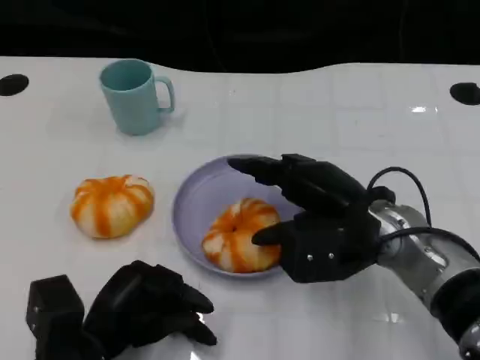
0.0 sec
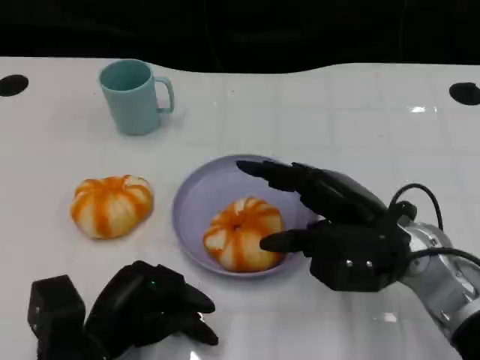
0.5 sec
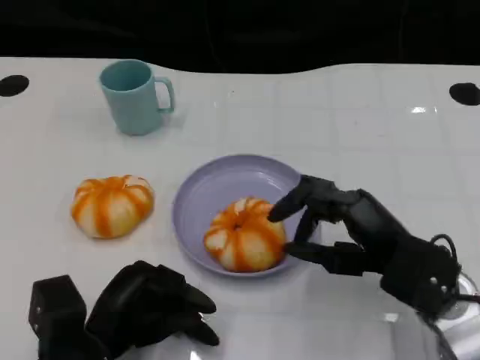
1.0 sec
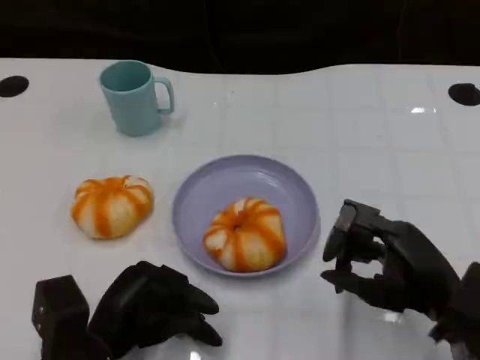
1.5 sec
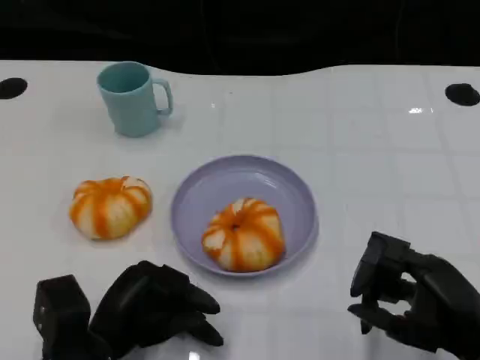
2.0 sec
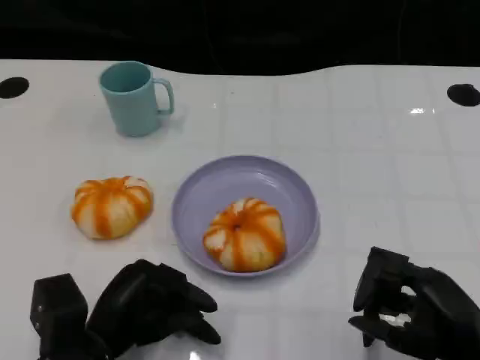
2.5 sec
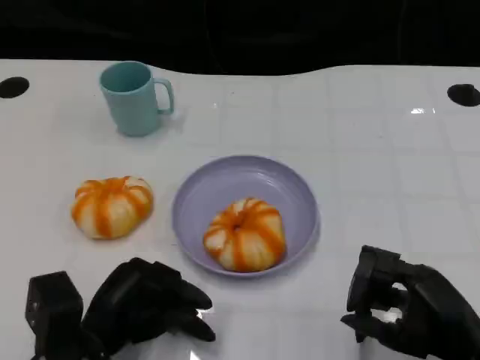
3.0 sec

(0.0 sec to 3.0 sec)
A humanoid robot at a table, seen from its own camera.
Task of the whole recording: Grasp the bread from the table and place it into the plate.
0.0 sec - 1.5 sec: The right hand heads backward and to the right, covering about 10 cm.
1.5 sec - 3.0 sec: There are only small adjustments of the hands.

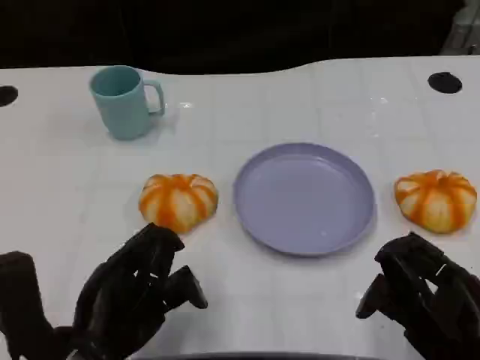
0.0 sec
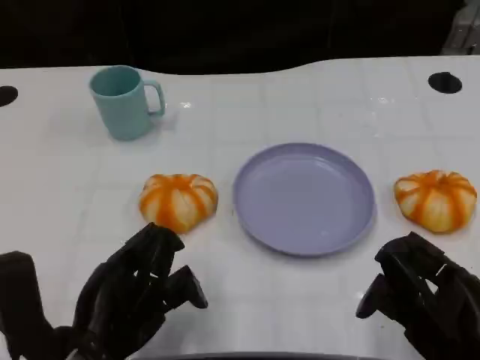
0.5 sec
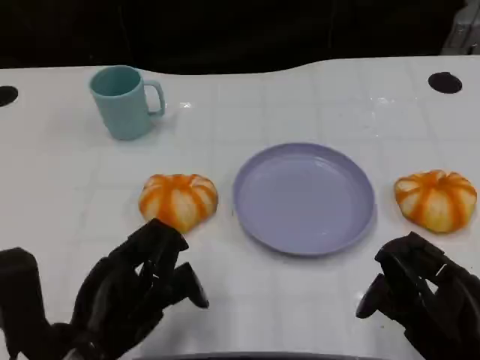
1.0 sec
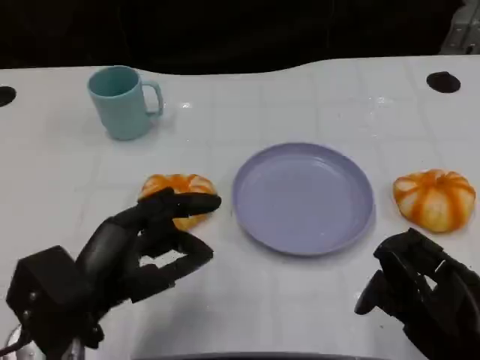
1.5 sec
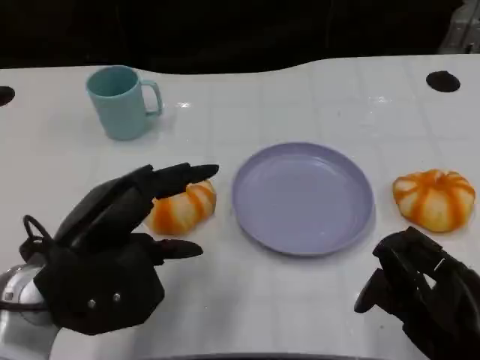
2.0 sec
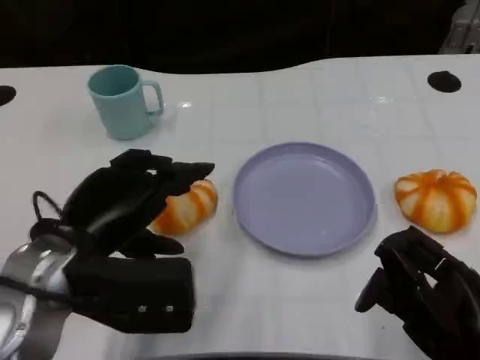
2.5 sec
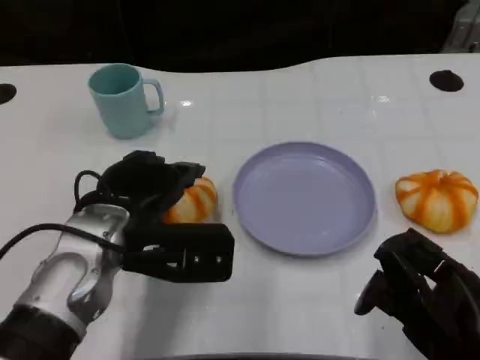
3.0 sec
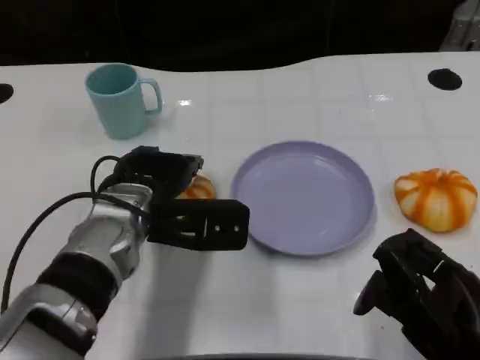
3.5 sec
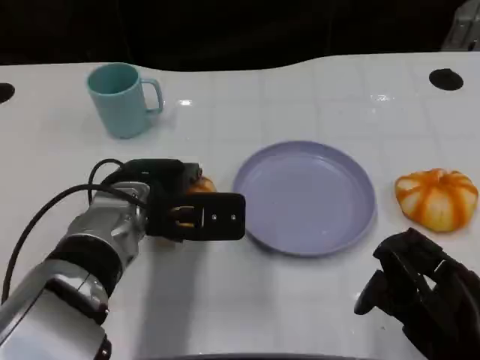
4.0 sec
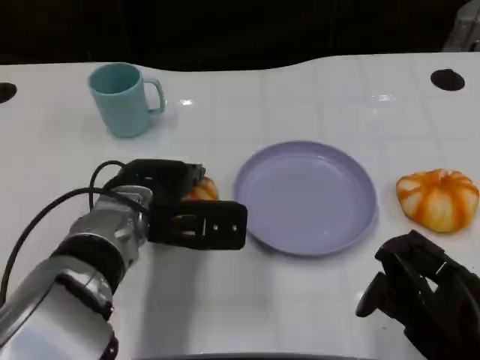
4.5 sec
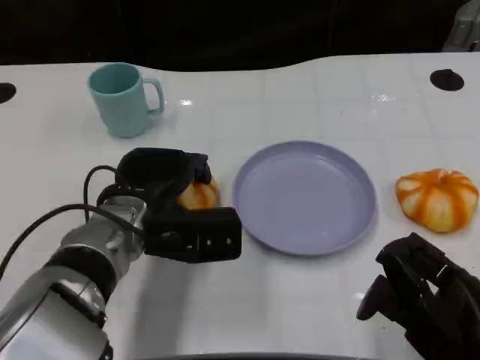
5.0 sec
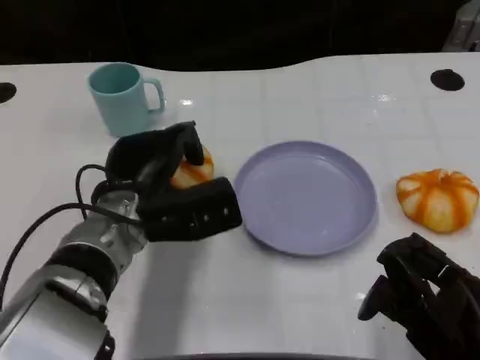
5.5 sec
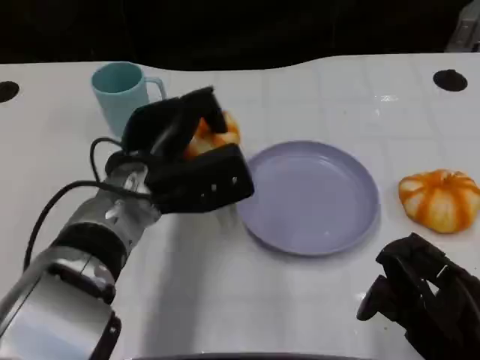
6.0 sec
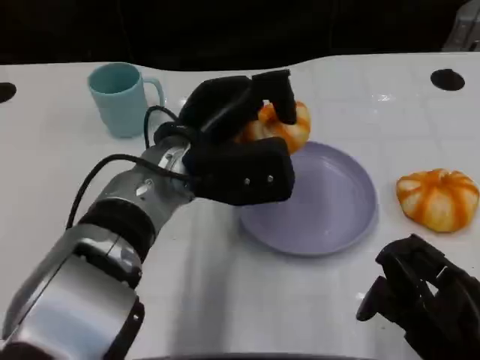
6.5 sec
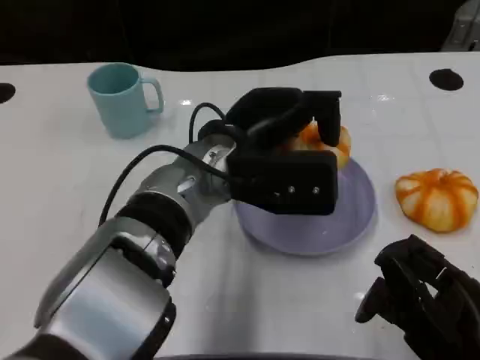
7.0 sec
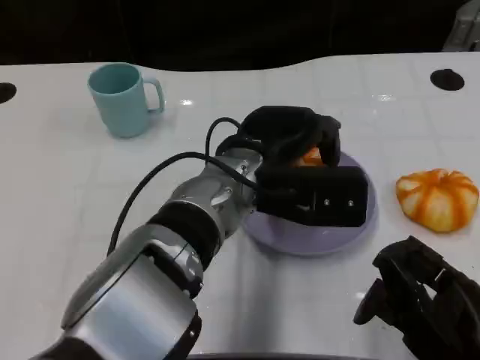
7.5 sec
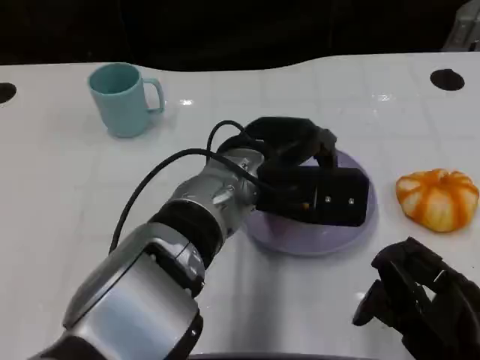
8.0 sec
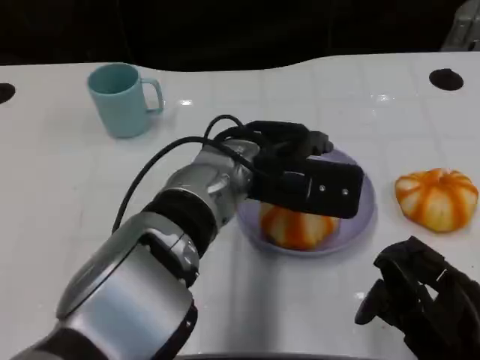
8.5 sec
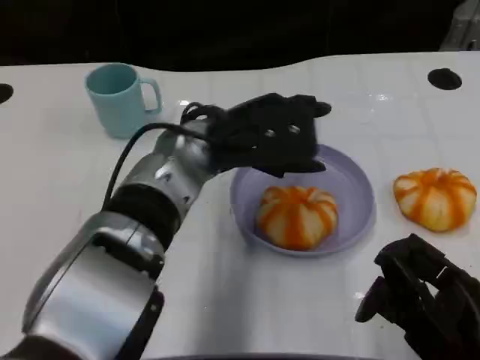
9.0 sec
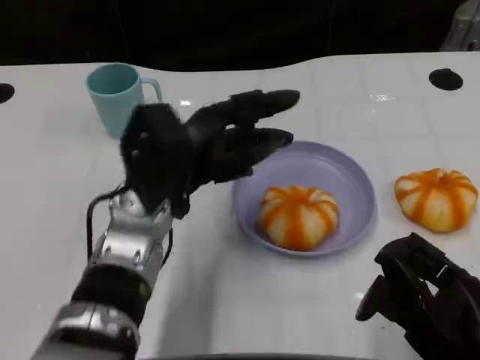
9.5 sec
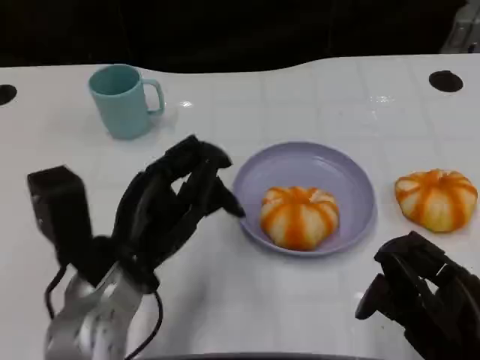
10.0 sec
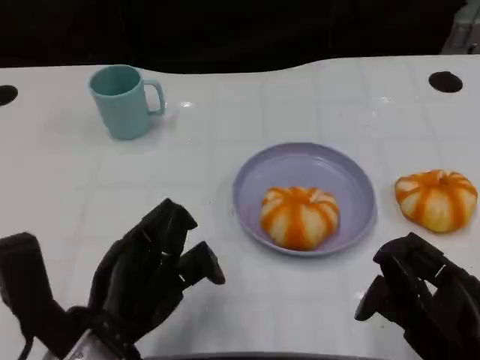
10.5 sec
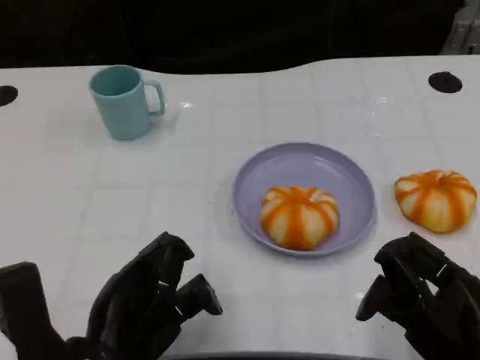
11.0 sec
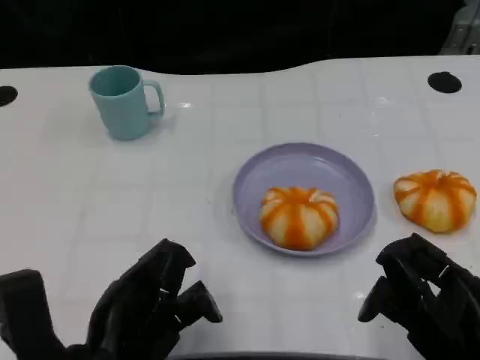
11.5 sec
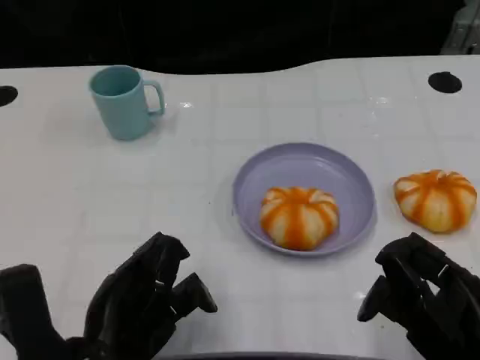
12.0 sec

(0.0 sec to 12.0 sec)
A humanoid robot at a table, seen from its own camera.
Task of the whole recording: Grasp the bread from the table and place it into the plate.
0.0 sec - 2.0 sec: The left hand heads upward and forward, covering roughly 5 cm.
2.0 sec - 4.0 sec: The left hand goes about 10 cm forward and to the right.
6.0 sec - 8.0 sec: The left hand moves to the right, approximately 10 cm.
8.0 sec - 10.0 sec: The left hand moves to the left and backward, approximately 15 cm.
10.0 sec - 12.0 sec: The left hand travels backward by some 5 cm.

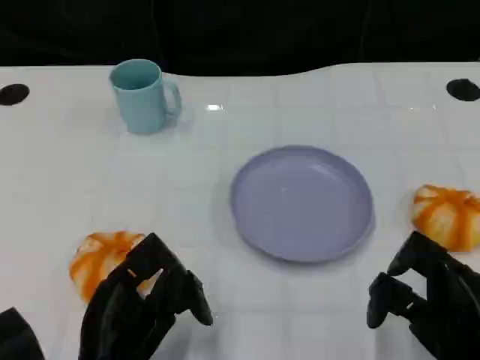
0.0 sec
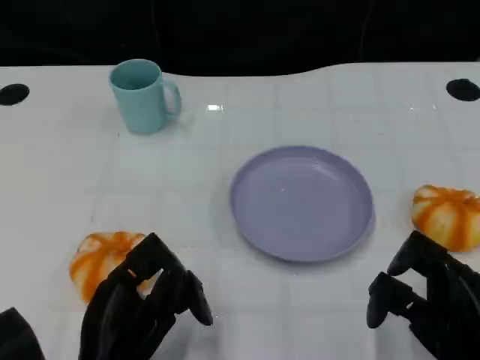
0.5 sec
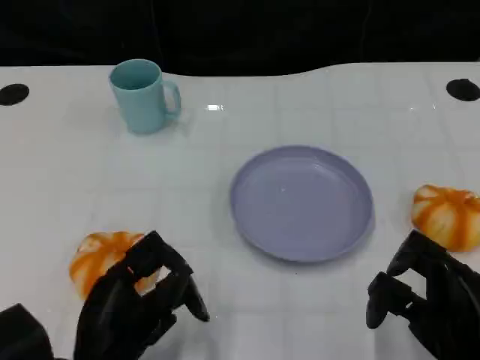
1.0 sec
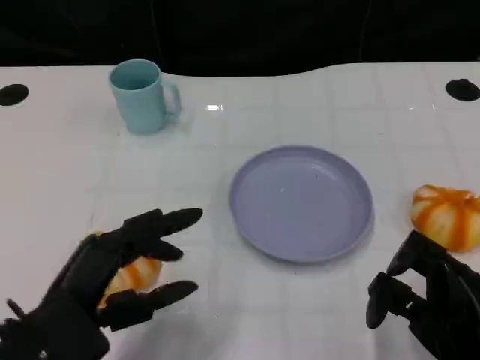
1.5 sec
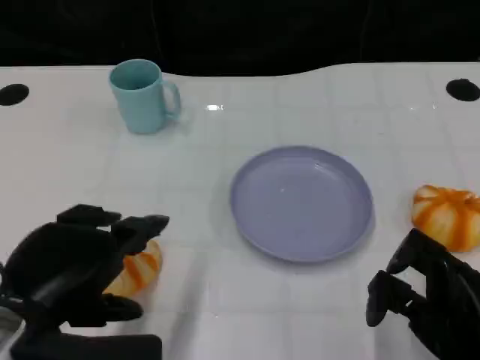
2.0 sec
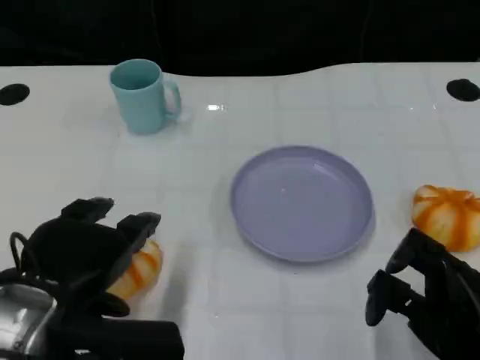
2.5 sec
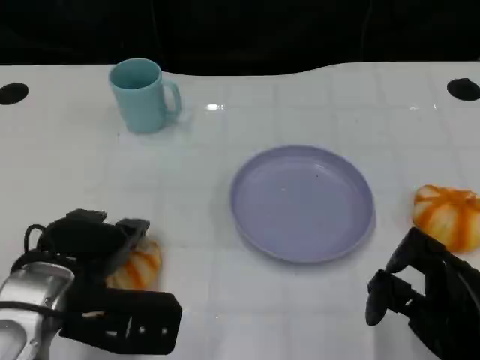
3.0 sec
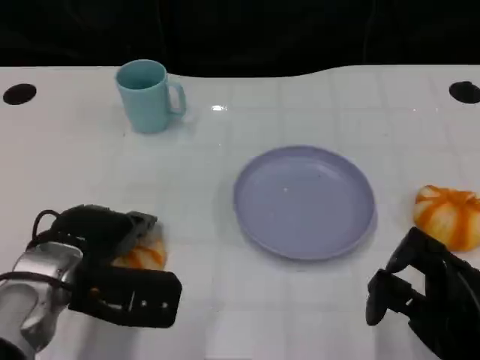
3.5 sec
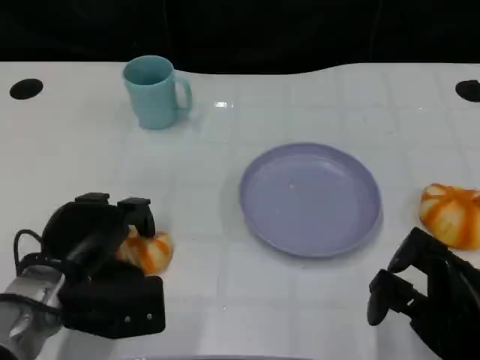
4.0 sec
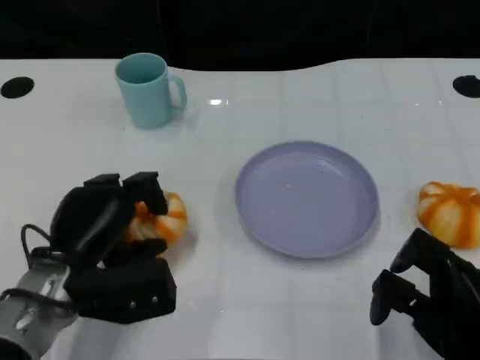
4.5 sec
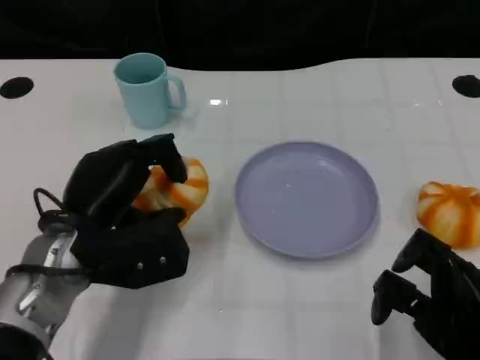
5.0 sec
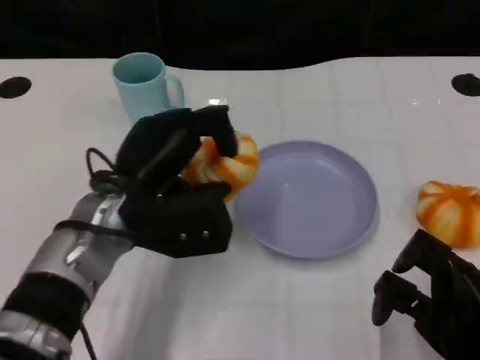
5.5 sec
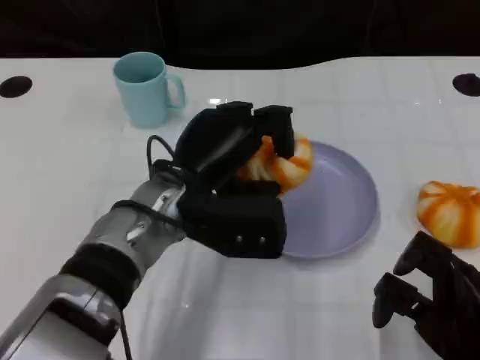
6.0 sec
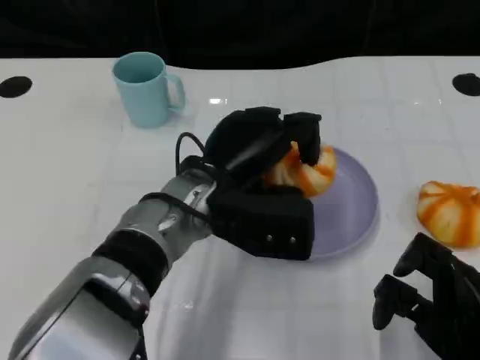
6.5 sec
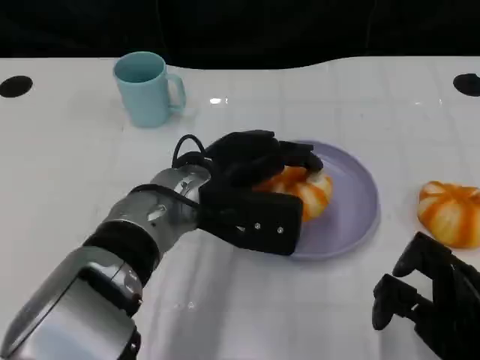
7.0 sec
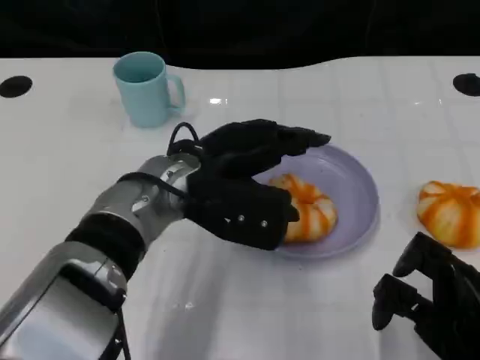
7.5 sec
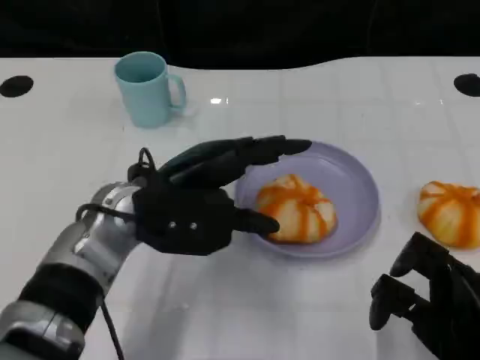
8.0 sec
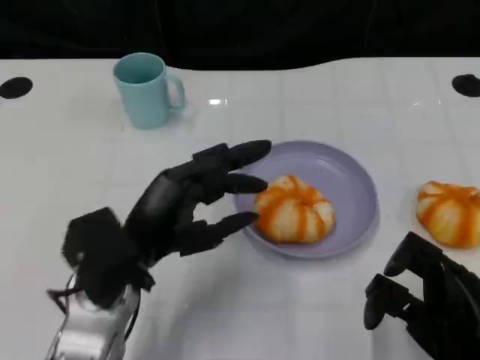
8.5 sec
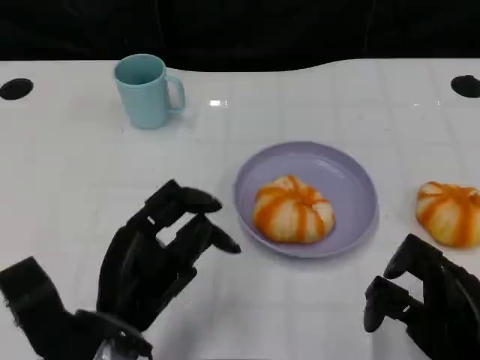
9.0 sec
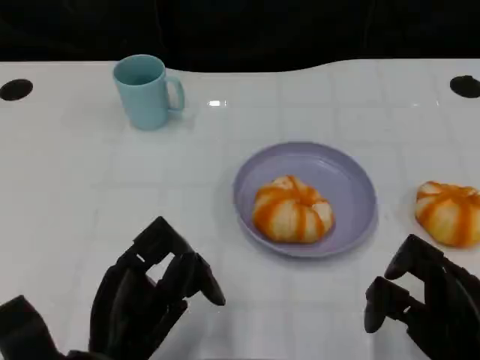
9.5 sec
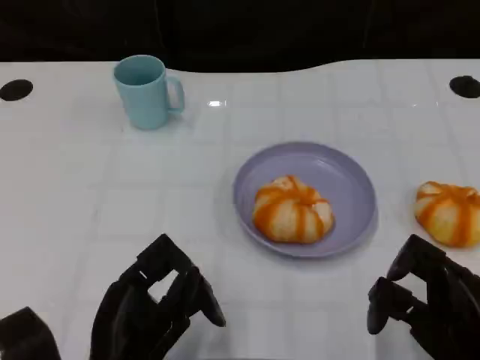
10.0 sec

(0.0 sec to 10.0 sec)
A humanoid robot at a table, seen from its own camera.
Task of the whole recording: Grasp the bread from the table and place it into the plate.
0.0 sec - 2.0 sec: The left hand travels upward by about 10 cm.
2.0 sec - 4.0 sec: The left hand travels downward and forward by some 15 cm.
4.0 sec - 6.0 sec: The left hand travels to the right and upward by some 15 cm.
8.0 sec - 10.0 sec: The left hand is displaced backward and downward by approximately 15 cm.
